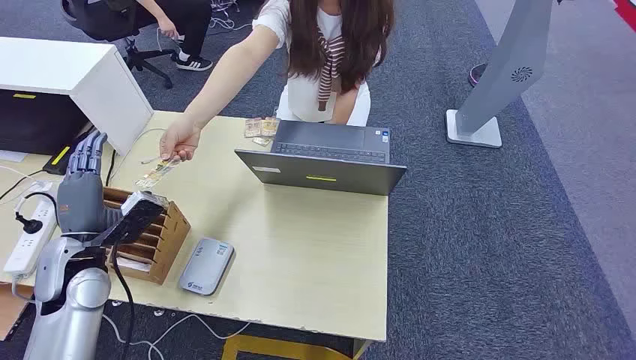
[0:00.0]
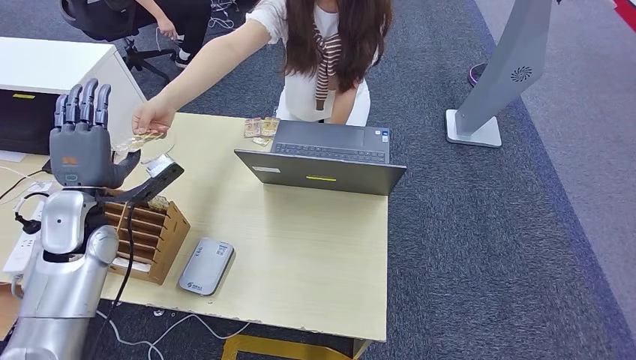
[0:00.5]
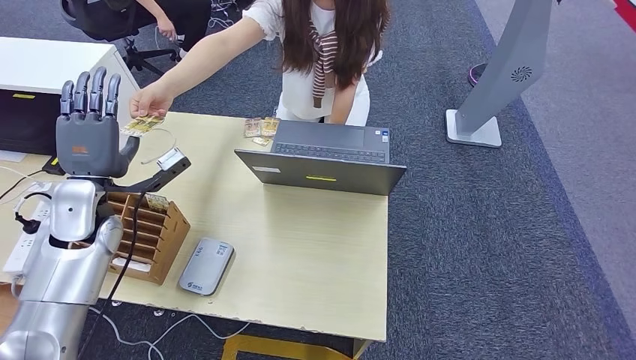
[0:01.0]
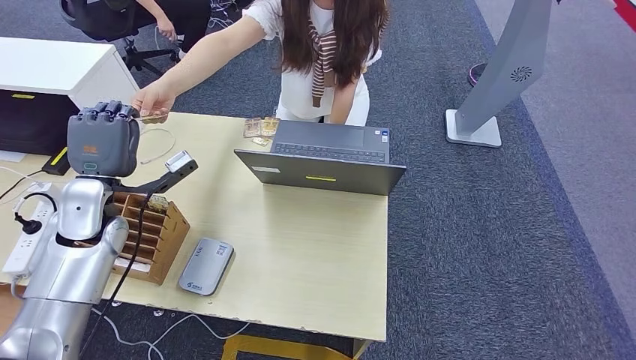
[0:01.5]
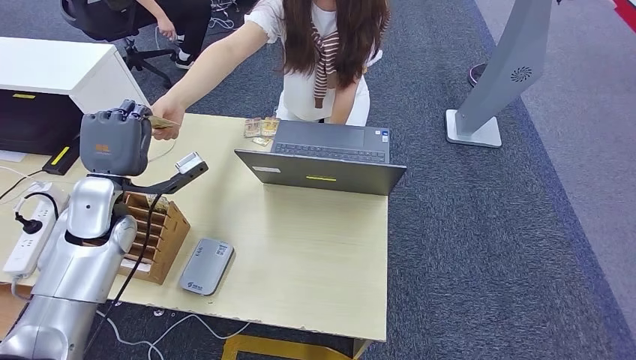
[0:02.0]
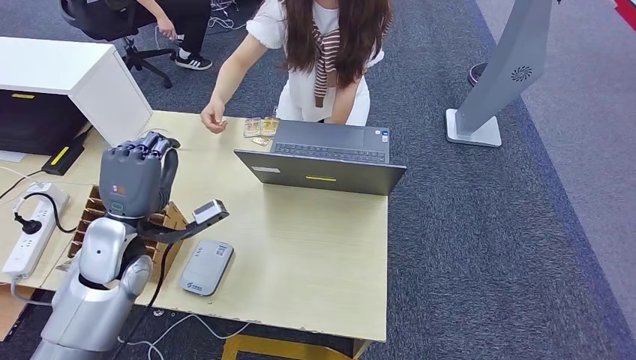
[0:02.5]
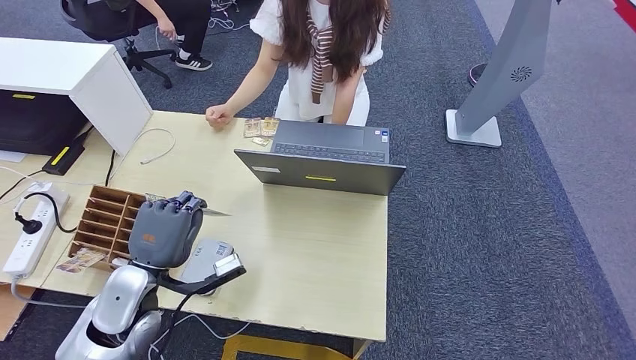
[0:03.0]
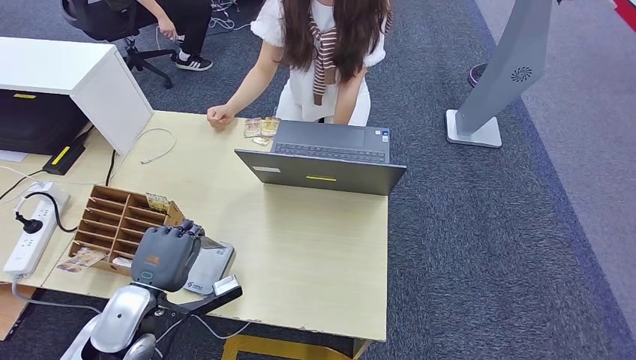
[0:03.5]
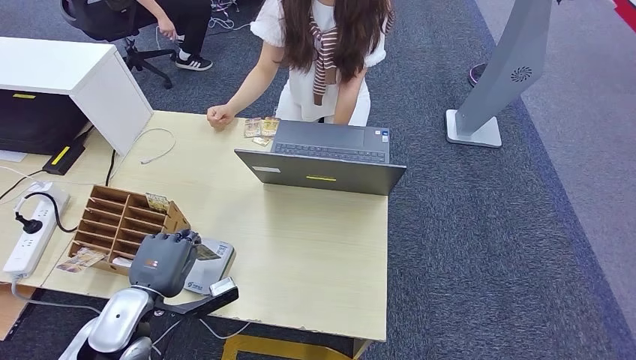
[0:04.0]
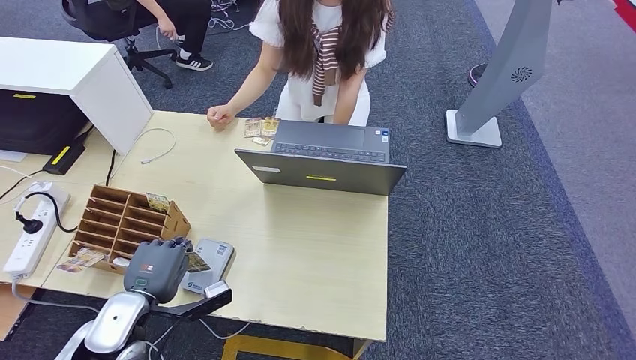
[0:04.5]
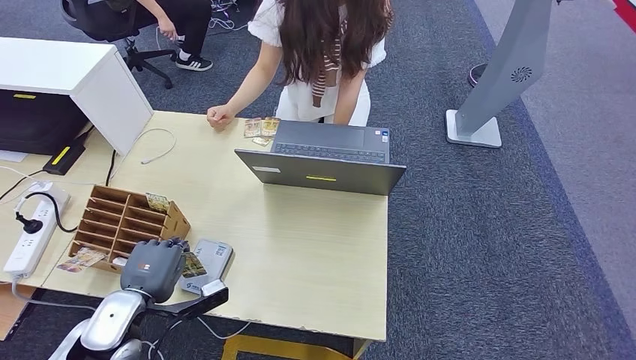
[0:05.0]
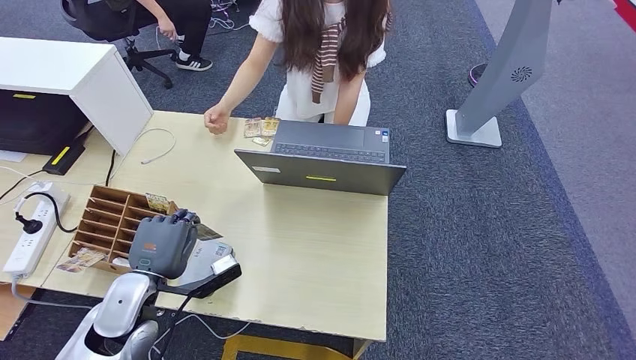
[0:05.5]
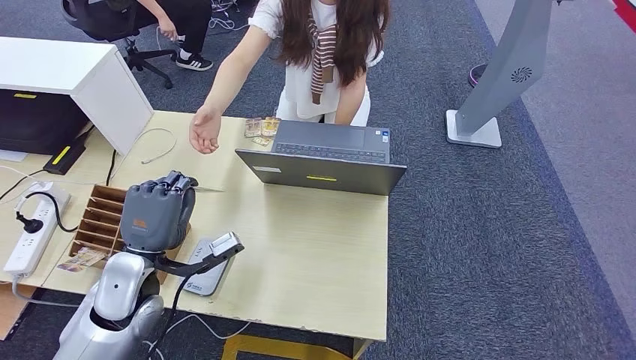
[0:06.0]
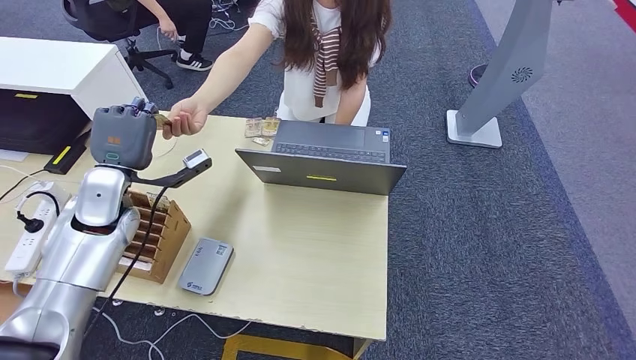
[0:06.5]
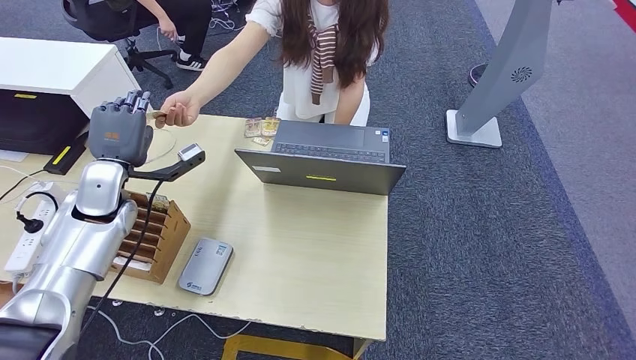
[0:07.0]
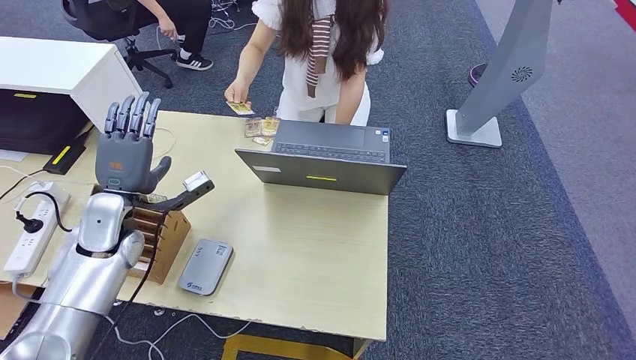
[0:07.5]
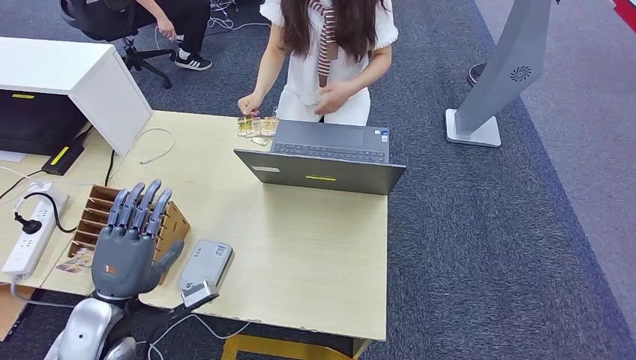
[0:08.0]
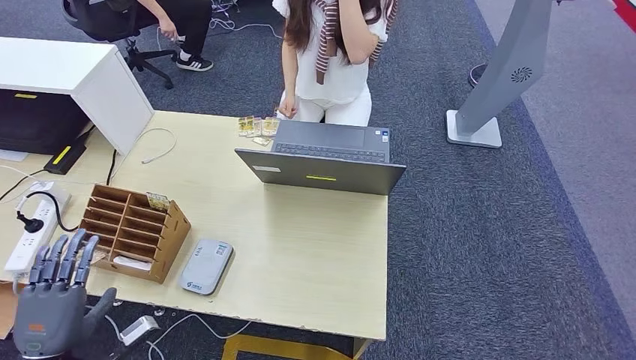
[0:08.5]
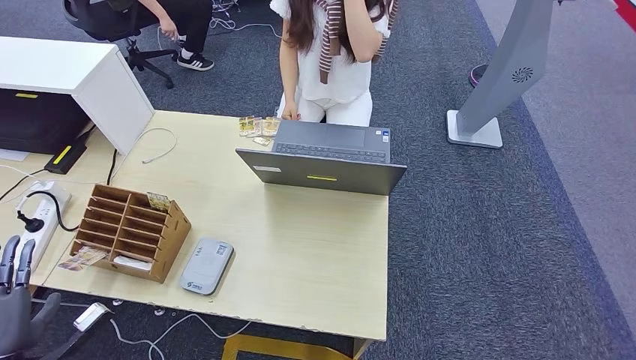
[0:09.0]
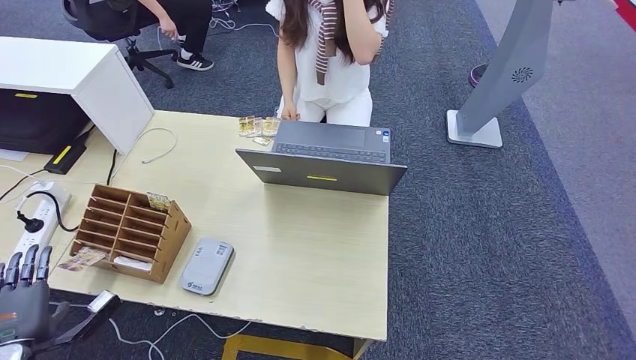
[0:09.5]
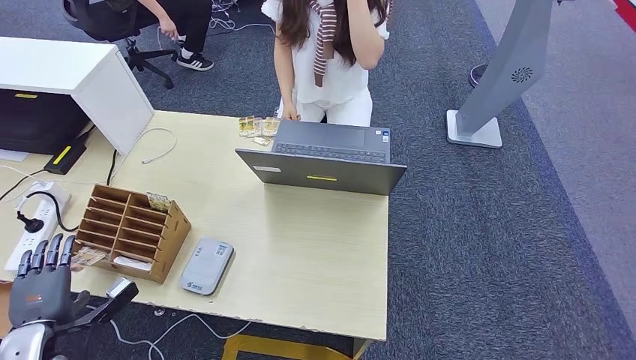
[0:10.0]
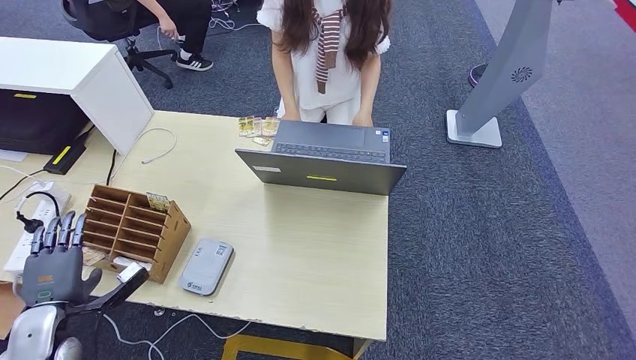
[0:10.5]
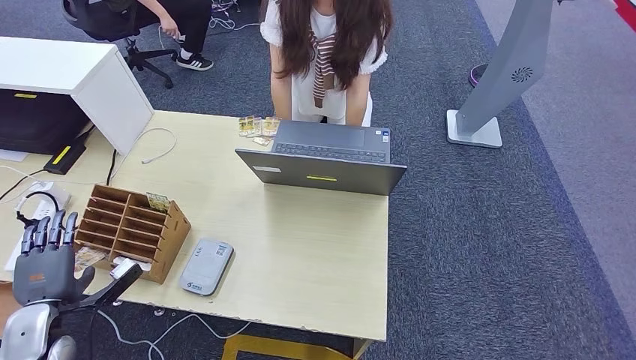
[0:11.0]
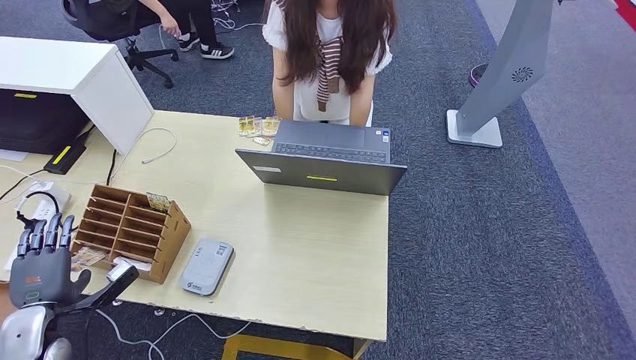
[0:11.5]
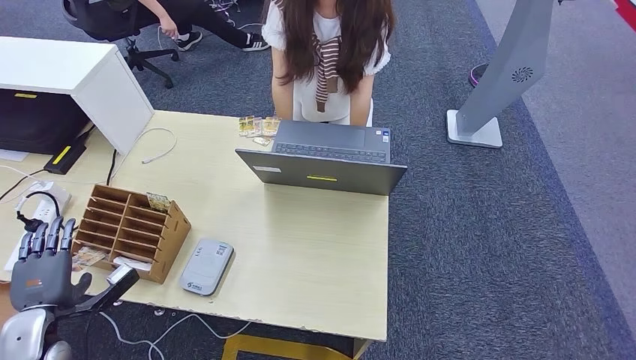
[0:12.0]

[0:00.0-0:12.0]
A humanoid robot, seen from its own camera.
Step, 0:00.0 to 0:02.5: Take the ID card from the person's hand.
Step, 0:03.0 to 0:06.5: Place the ID card on the card reader.
Step, 0:07.0 to 0:10.5: Hand the ID card to the person.
0:02.0 to 0:04.0: The left hand shifts some 20 cm backward and downward.
0:04.0 to 0:06.0: The left hand shifts about 5 cm upward.
0:06.0 to 0:08.0: The left hand travels forward and back again, roughly 15 cm each way.
0:08.0 to 0:10.0: The left hand moves to the left and downward, about 15 cm.
0:10.0 to 0:12.0: The hands move only a little.

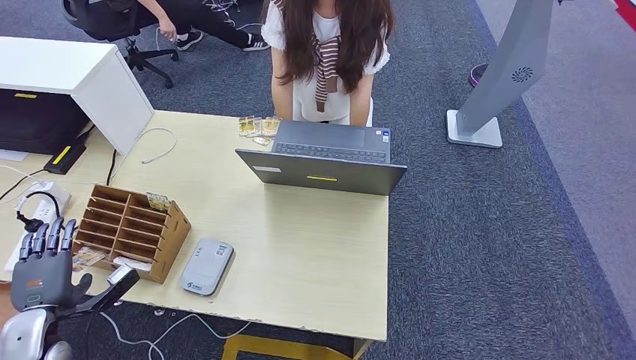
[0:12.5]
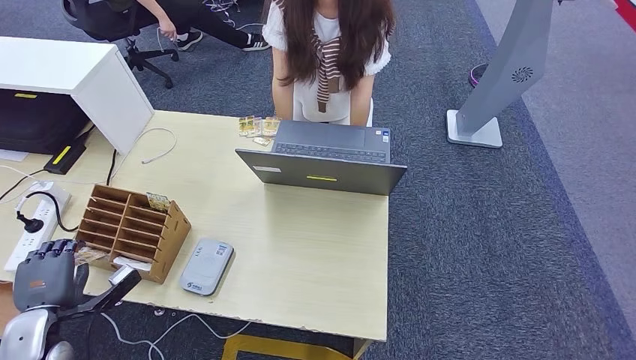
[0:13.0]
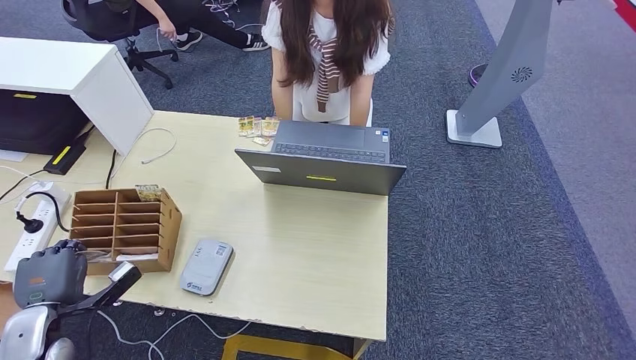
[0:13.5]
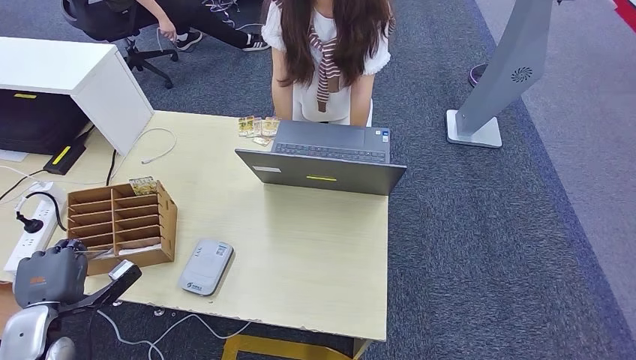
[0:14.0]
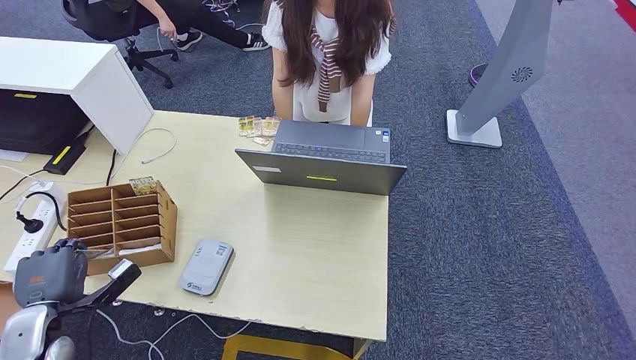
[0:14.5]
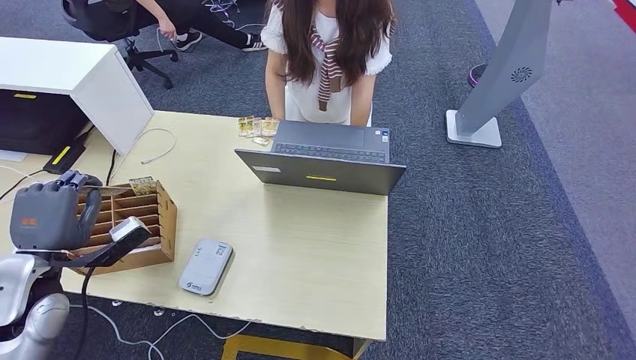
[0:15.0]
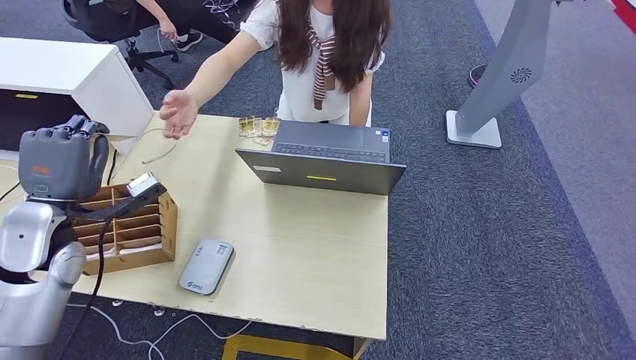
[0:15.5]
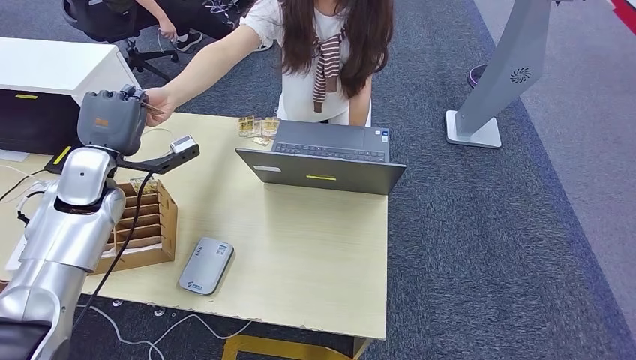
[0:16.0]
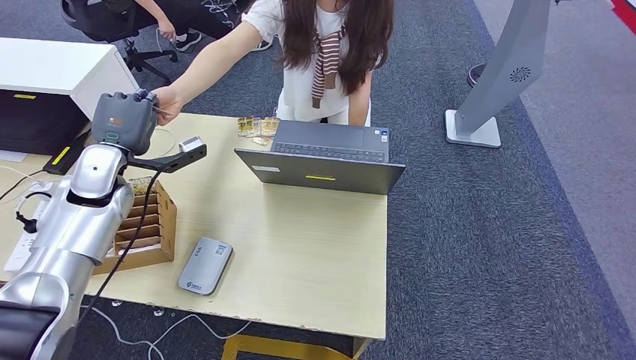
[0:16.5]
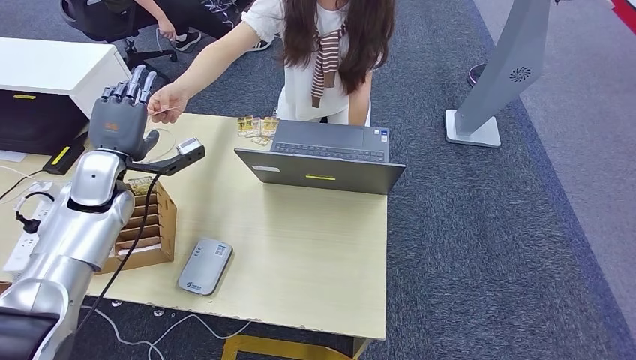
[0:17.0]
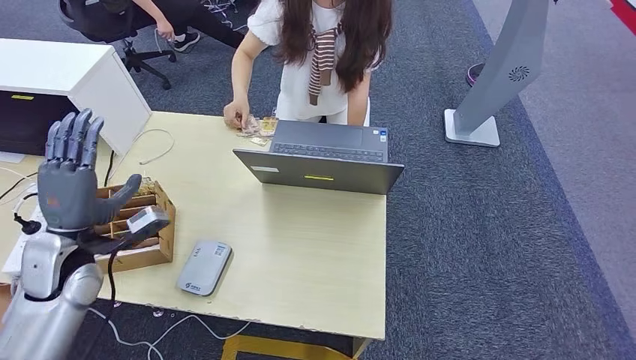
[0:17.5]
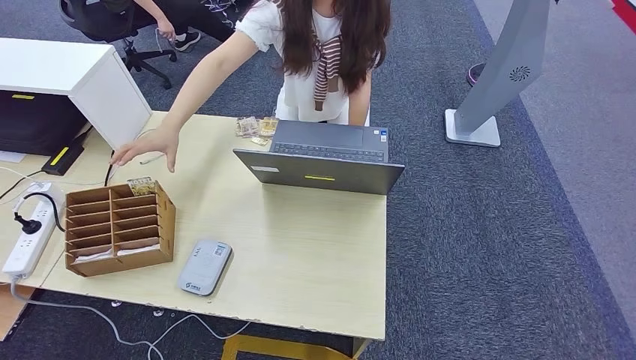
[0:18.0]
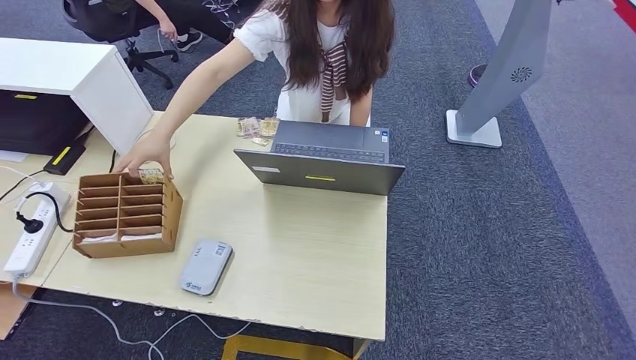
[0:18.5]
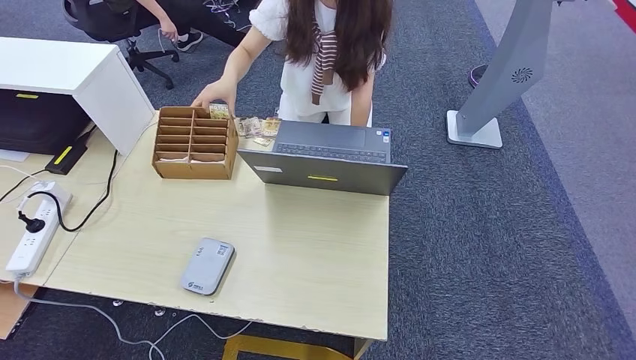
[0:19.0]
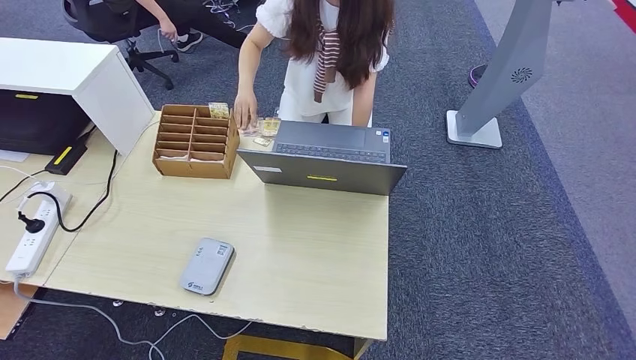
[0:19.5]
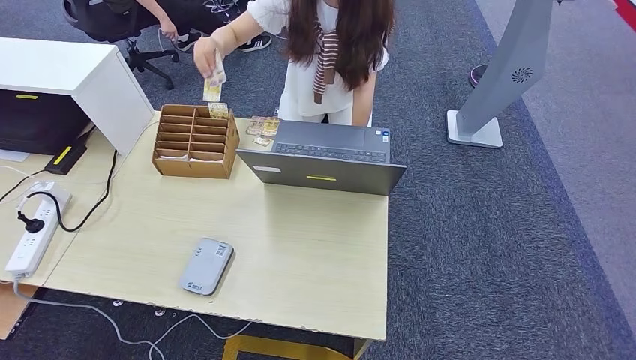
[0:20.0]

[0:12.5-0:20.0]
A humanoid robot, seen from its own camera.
Step, 0:12.5 to 0:15.0: Pick up the room key from the key card box.
Step, 0:15.5 to 0:20.0: Hand the room key to the person.
0:12.5 to 0:14.5: Both hands stay put.
0:14.5 to 0:16.5: The left hand is displaced forward, upward and to the right by roughly 30 cm.
0:16.5 to 0:18.0: The left hand goes about 35 cm backward and to the left.
0:18.0 to 0:20.0: The left hand shifts roughly 40 cm downward and to the right.
